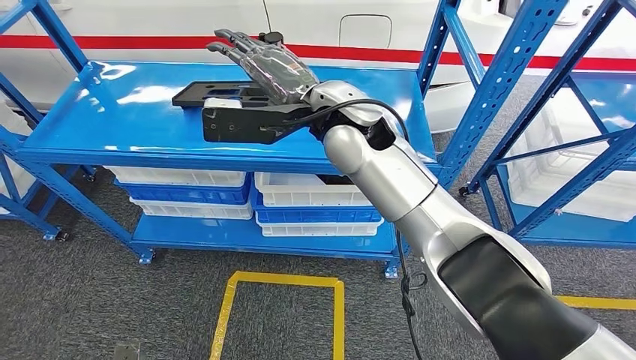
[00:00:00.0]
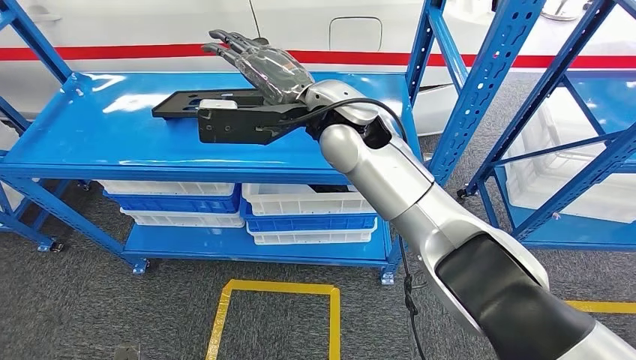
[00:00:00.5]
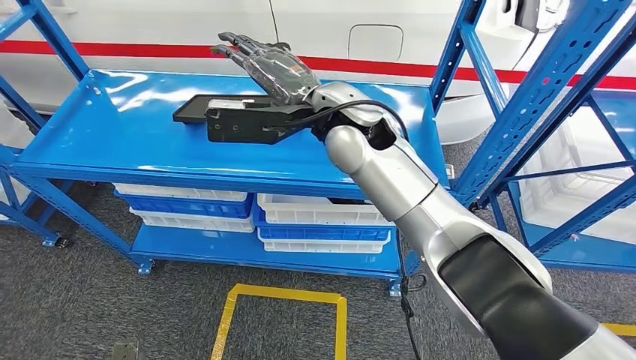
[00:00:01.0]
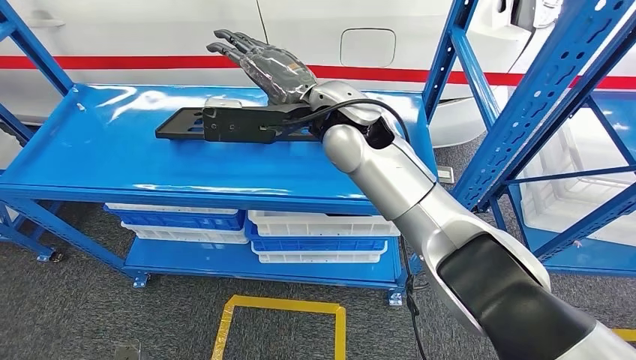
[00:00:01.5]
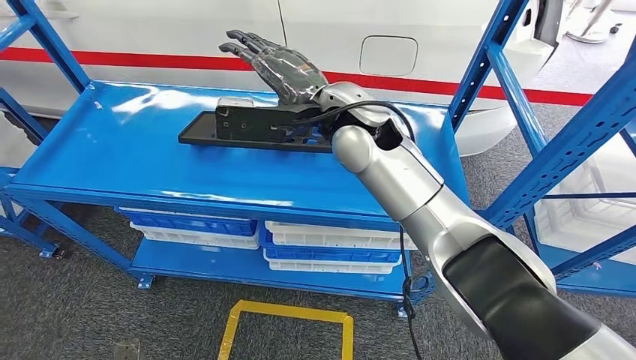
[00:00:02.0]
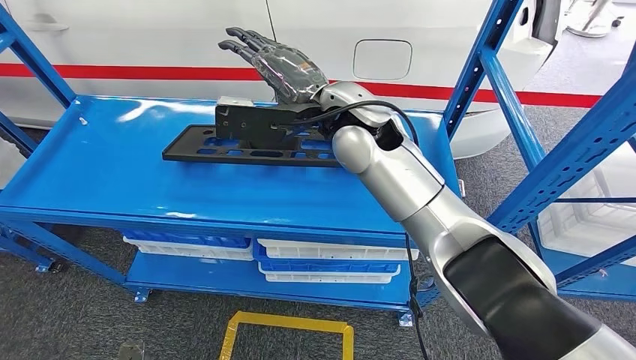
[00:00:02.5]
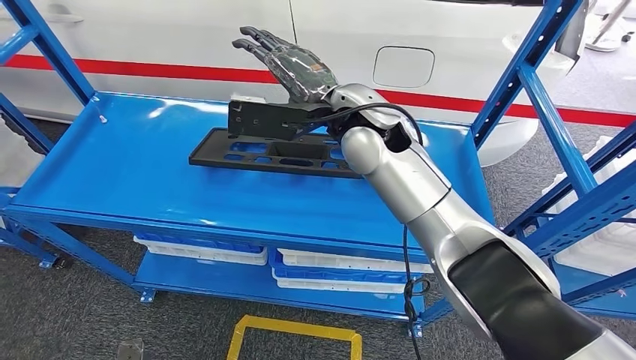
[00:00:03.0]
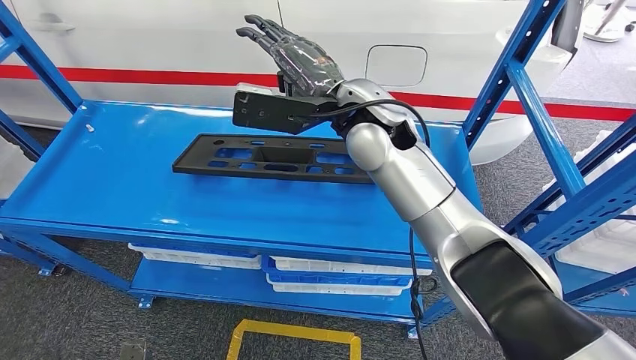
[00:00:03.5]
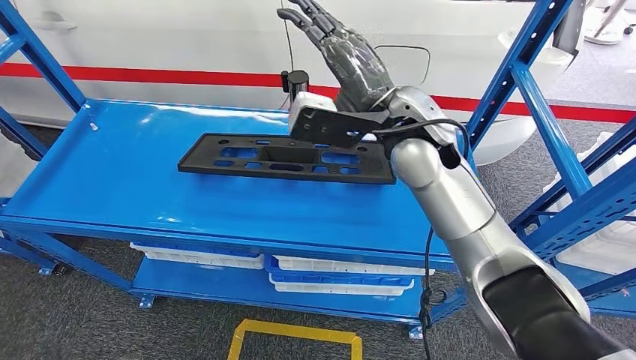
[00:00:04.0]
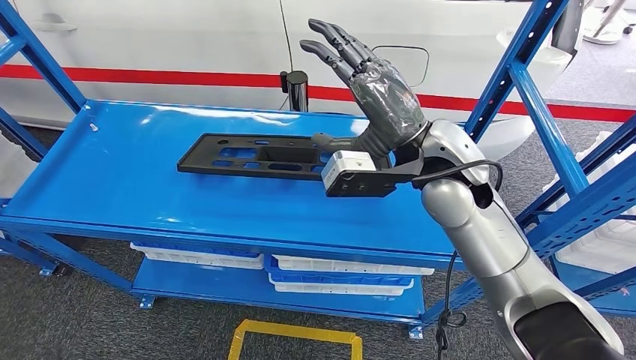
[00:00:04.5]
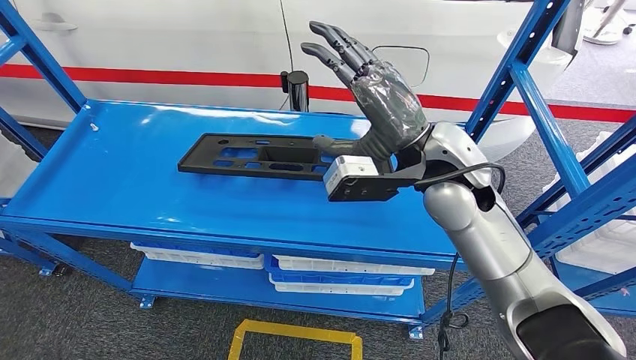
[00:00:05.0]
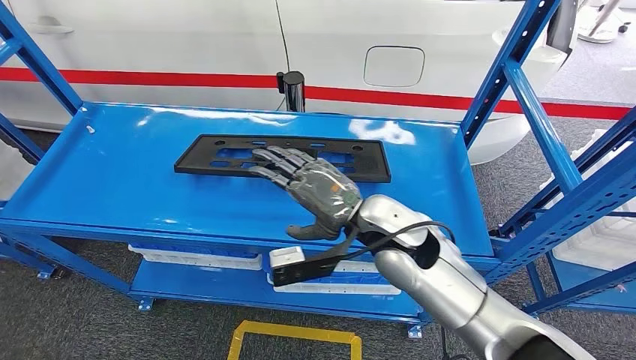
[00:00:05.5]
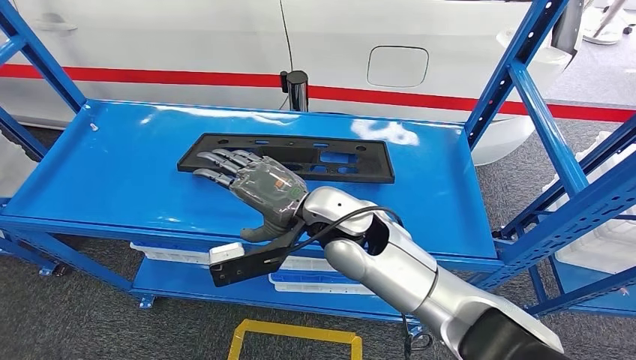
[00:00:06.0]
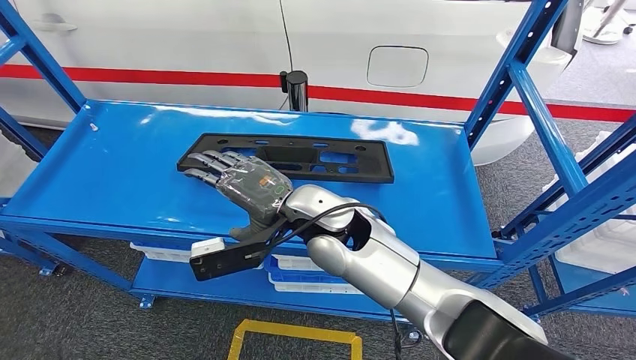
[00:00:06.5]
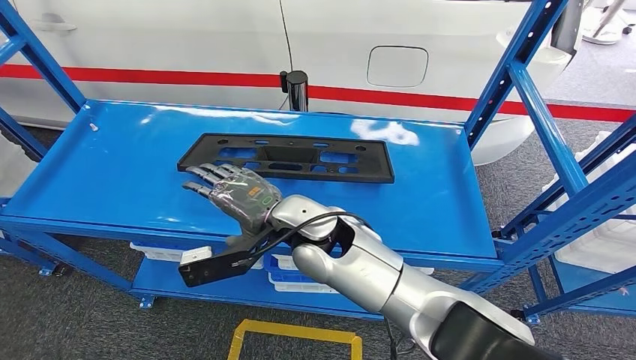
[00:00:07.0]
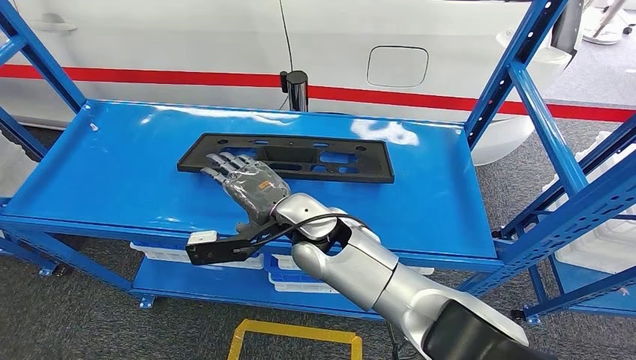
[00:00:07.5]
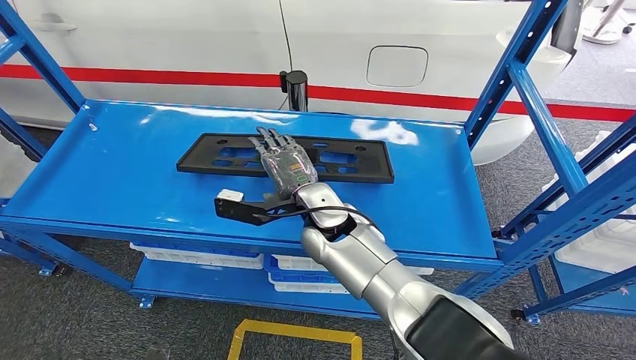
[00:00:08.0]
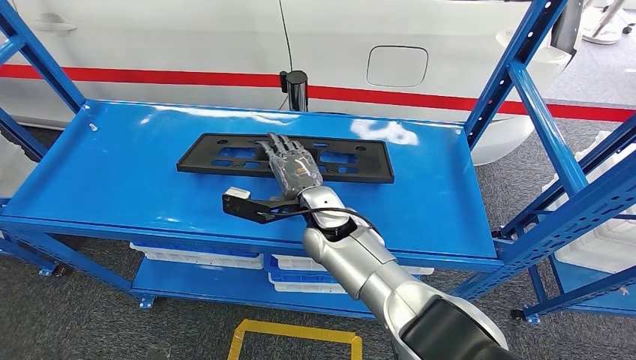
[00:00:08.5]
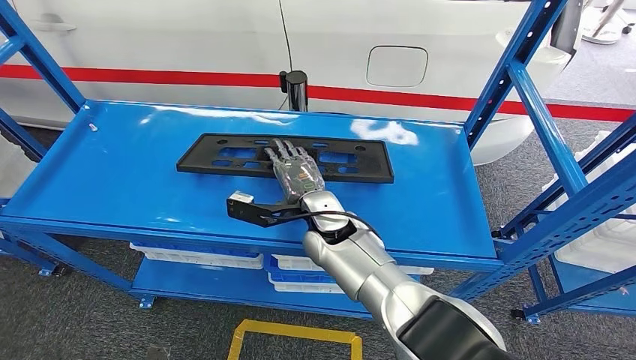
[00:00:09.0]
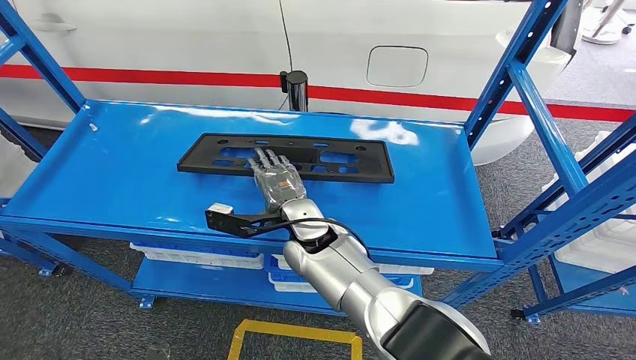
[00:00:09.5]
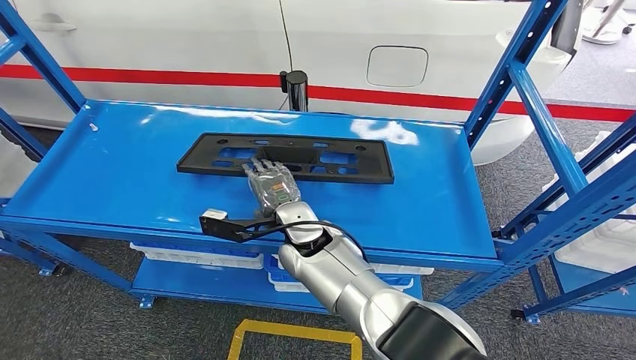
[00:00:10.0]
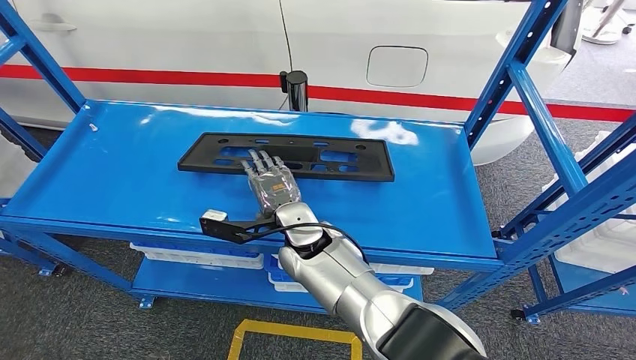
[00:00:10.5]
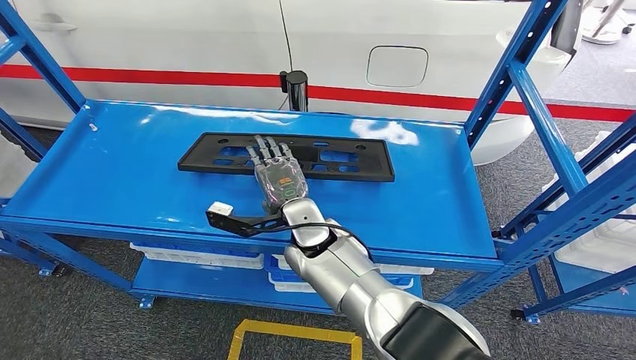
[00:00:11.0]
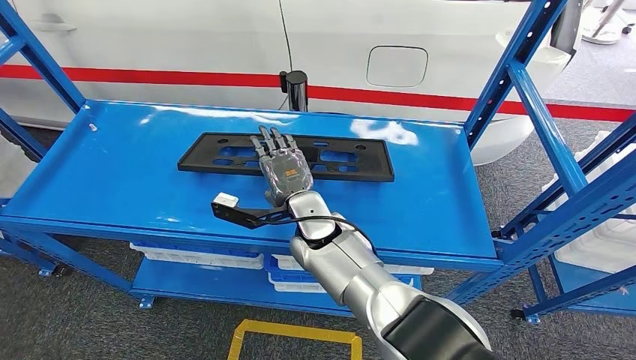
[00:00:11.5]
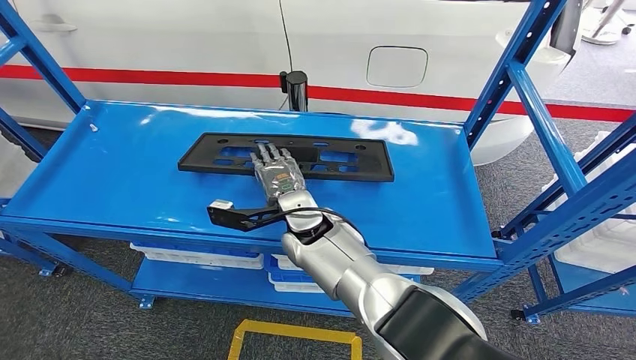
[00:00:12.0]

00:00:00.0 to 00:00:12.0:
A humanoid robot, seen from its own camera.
00:00:06.0 to 00:00:08.0: The right hand shifts approximately 10 cm downward and forward.
00:00:08.0 to 00:00:12.0: There are only small adjustments of the hands.

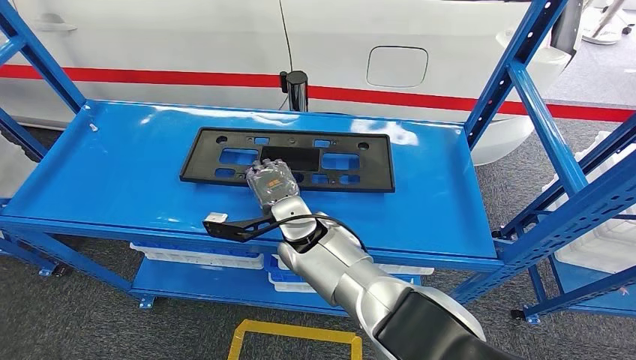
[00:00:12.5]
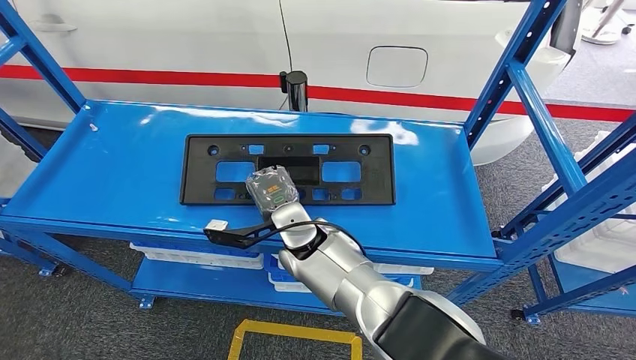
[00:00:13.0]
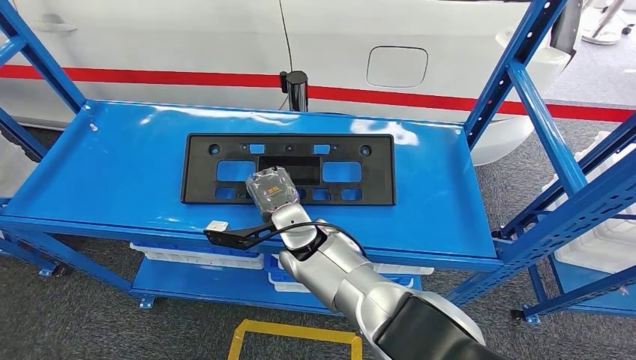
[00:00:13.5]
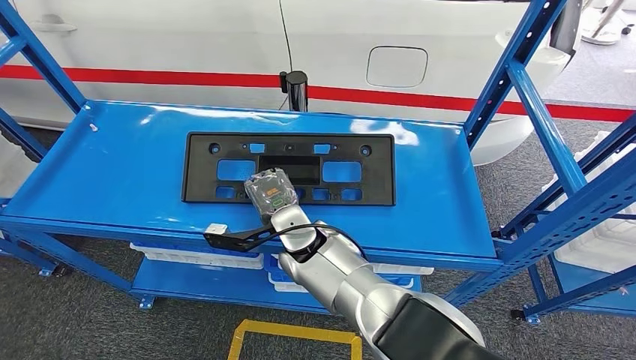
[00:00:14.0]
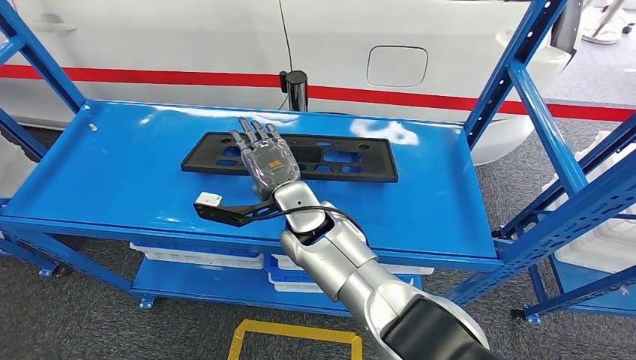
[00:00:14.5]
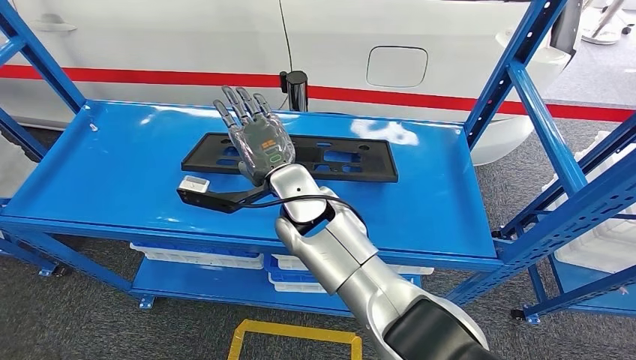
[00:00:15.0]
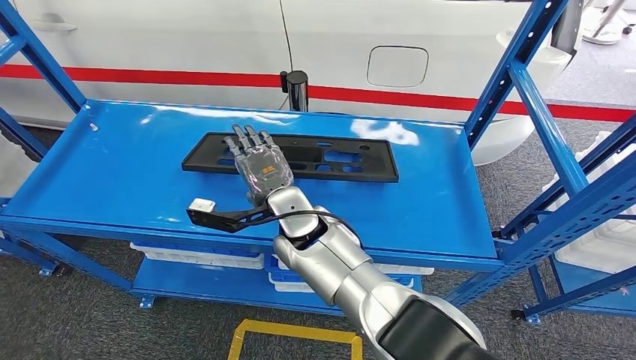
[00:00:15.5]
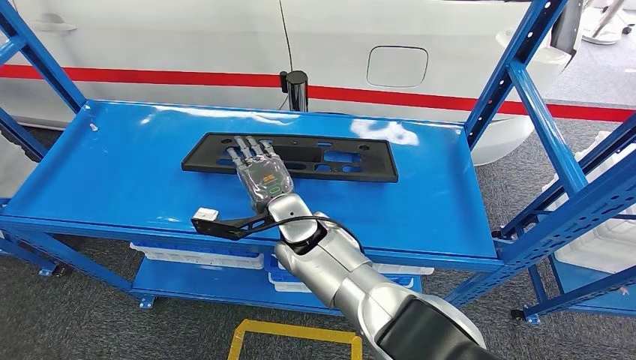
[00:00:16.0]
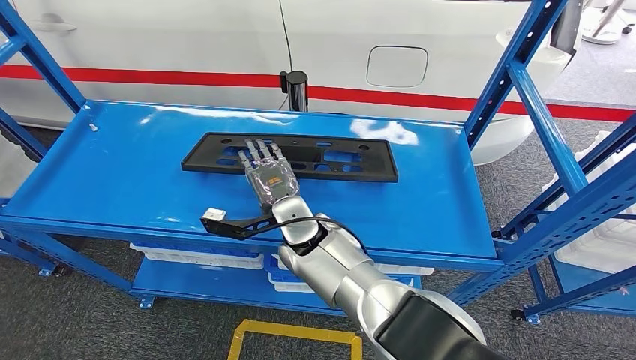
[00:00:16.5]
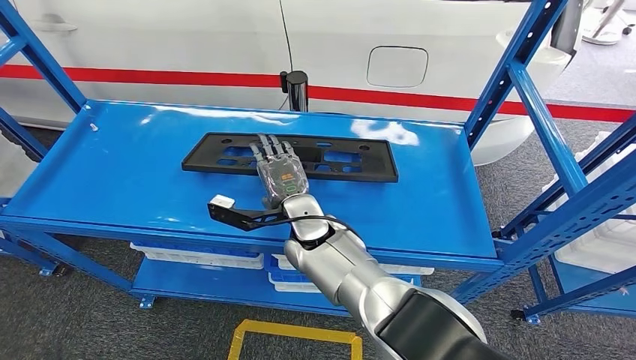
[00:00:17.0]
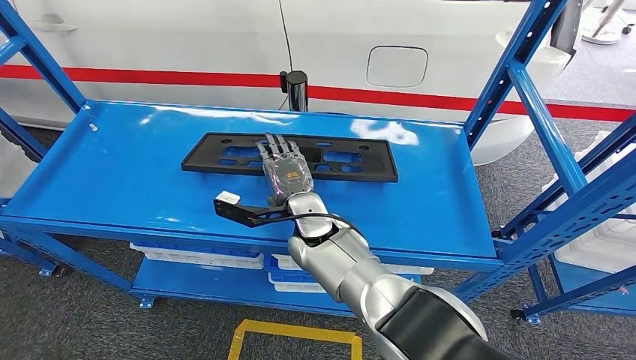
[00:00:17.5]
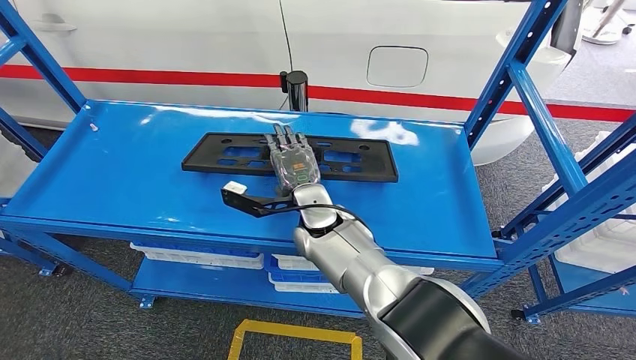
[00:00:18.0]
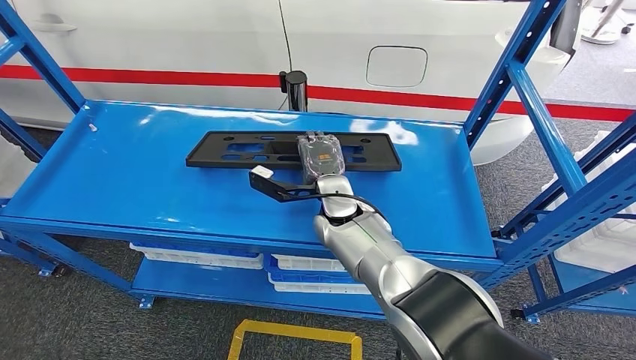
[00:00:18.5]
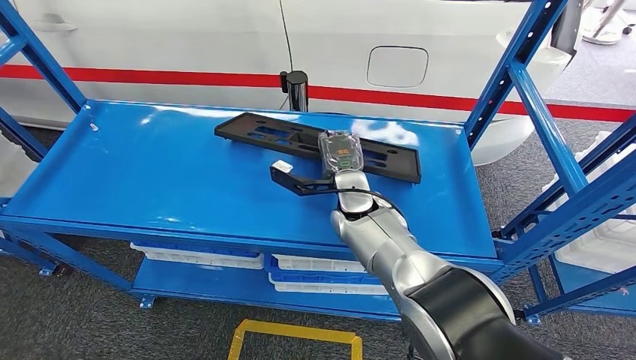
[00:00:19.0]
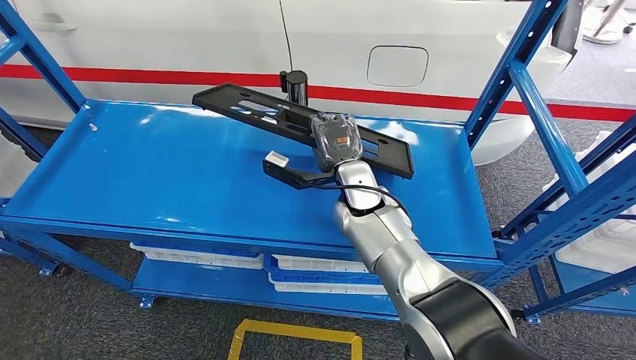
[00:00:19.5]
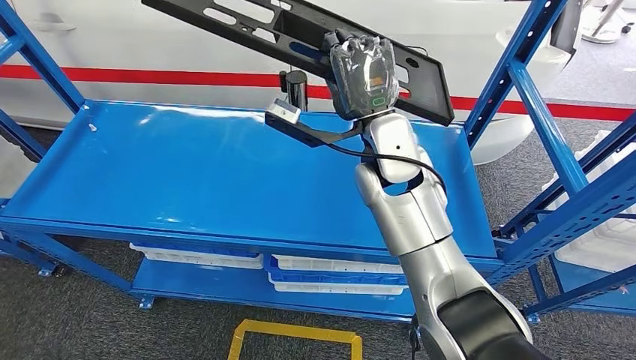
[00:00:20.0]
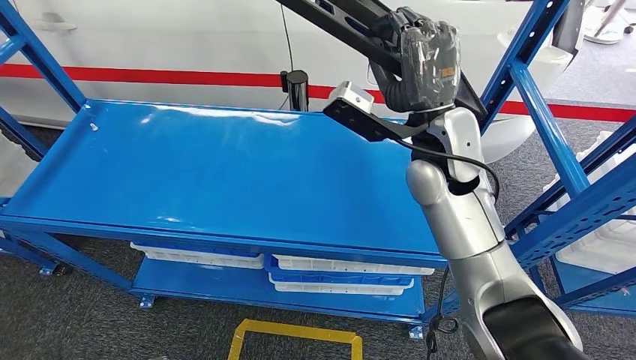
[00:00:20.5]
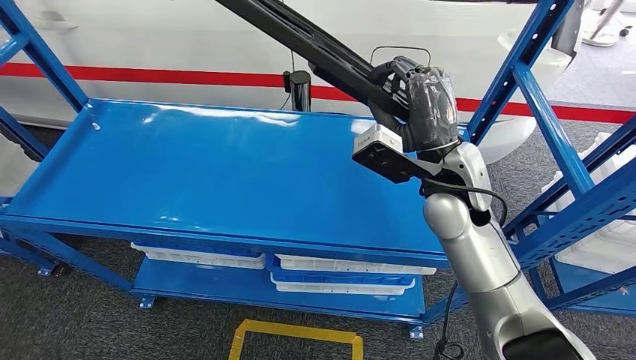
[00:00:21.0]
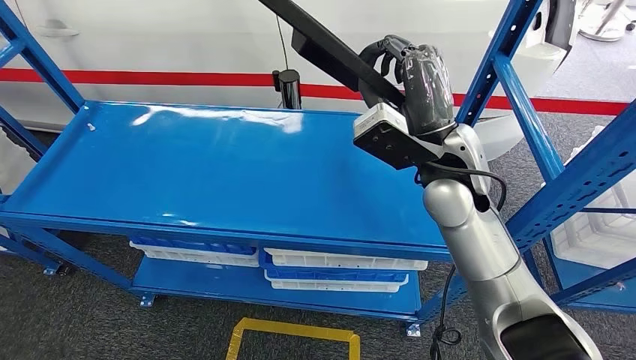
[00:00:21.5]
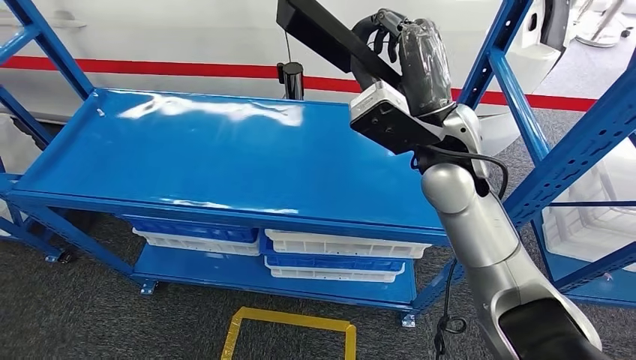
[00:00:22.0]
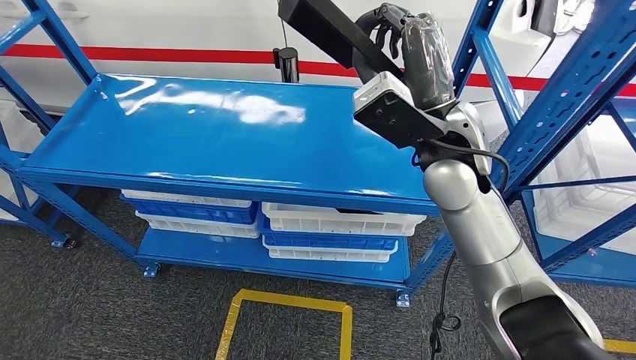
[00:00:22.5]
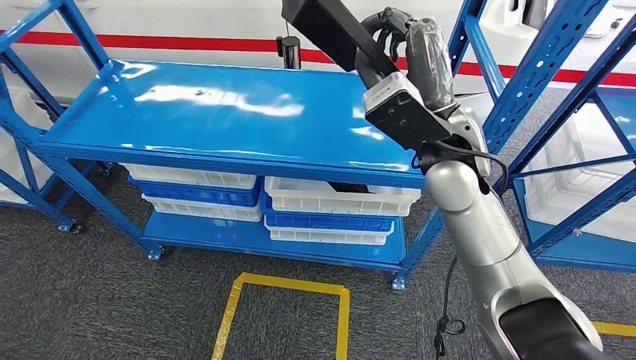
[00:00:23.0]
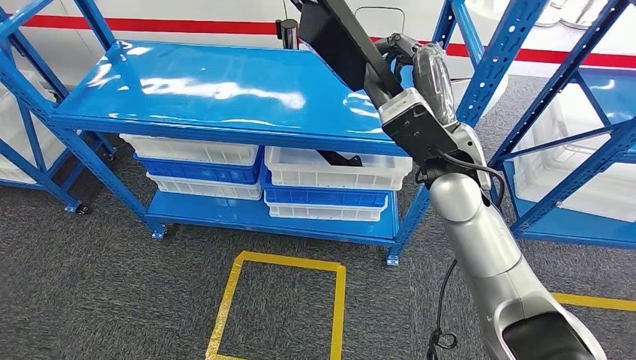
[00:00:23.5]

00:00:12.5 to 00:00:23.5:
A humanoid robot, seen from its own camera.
Step, 00:00:12.5 to 00:00:20.5: Pick up the large parts from the shelf.
00:00:12.5 to 00:00:14.5: The hands stay close to where they were, moving slightly.
00:00:14.5 to 00:00:16.0: There are only small adjustments of the hands.
00:00:16.0 to 00:00:18.0: The right hand shifts by some 5 cm.
